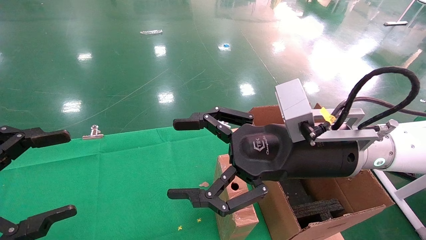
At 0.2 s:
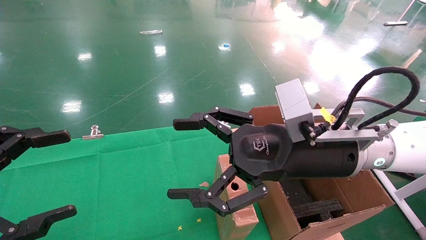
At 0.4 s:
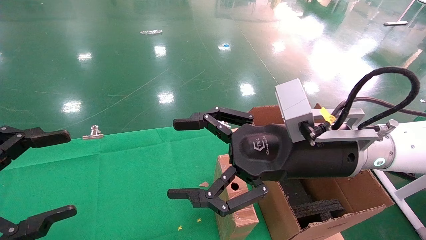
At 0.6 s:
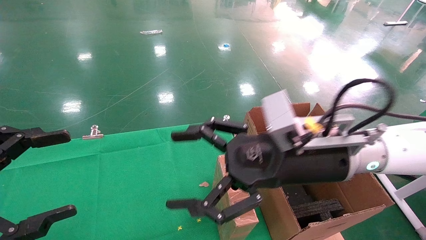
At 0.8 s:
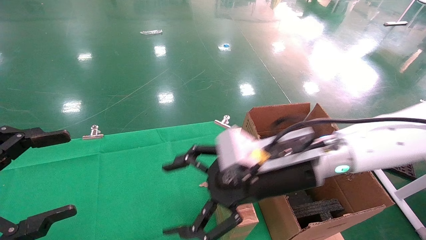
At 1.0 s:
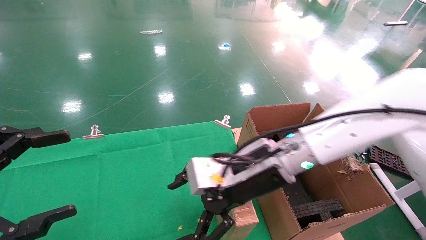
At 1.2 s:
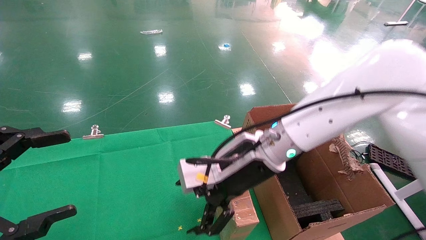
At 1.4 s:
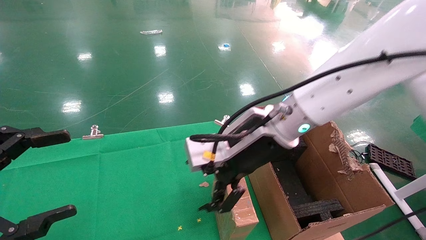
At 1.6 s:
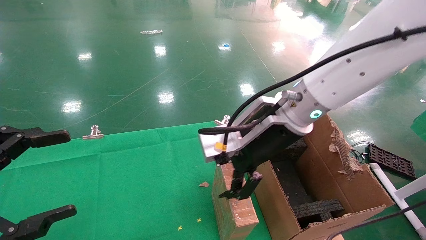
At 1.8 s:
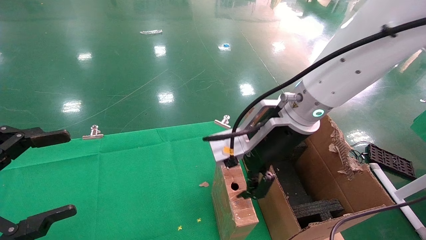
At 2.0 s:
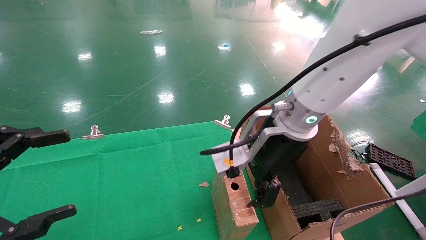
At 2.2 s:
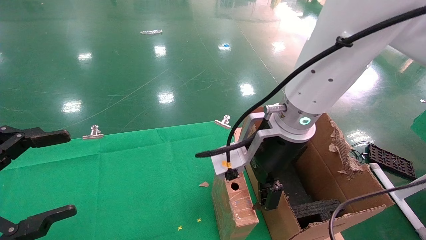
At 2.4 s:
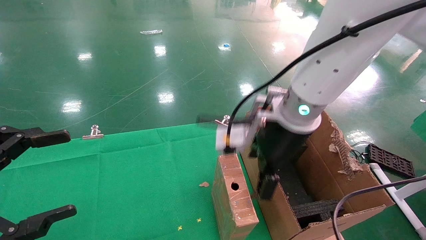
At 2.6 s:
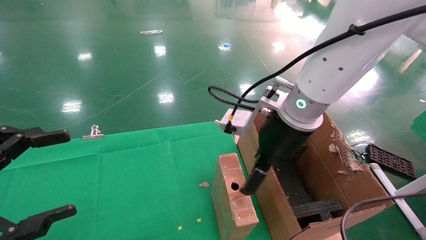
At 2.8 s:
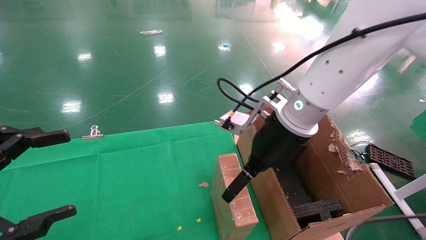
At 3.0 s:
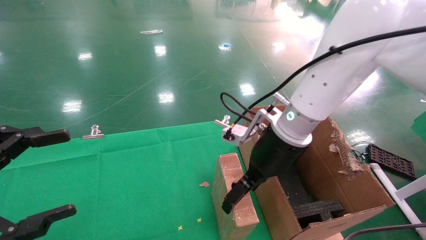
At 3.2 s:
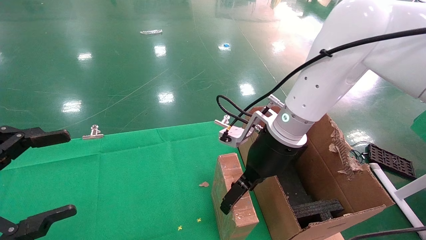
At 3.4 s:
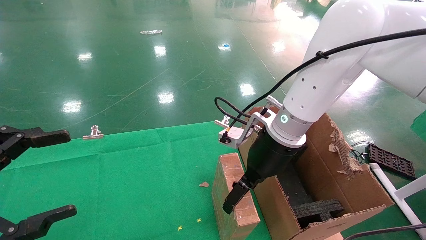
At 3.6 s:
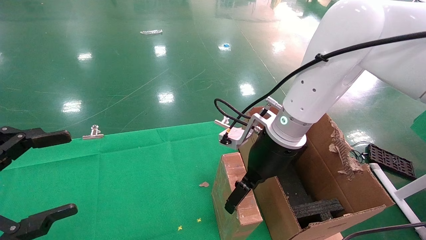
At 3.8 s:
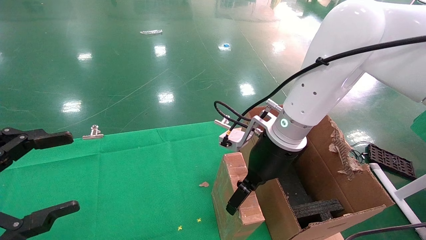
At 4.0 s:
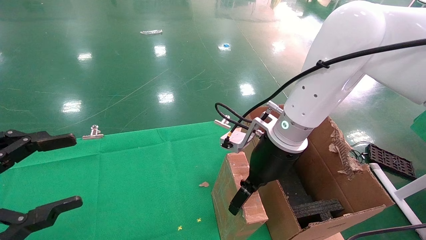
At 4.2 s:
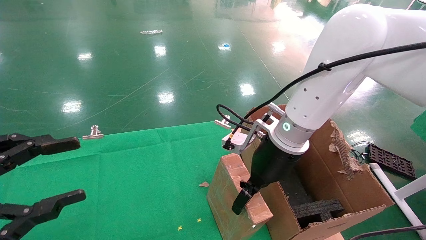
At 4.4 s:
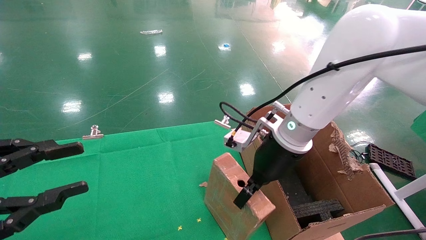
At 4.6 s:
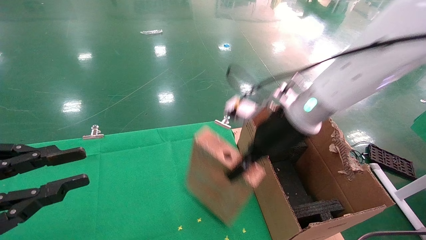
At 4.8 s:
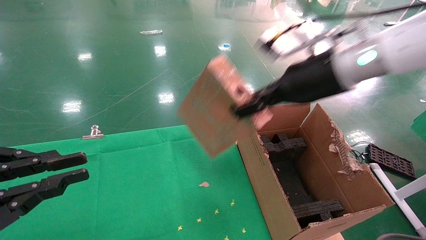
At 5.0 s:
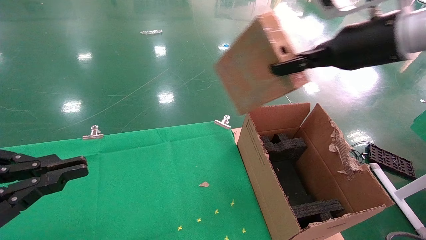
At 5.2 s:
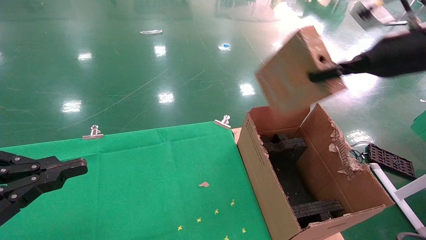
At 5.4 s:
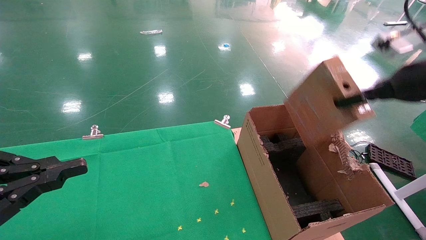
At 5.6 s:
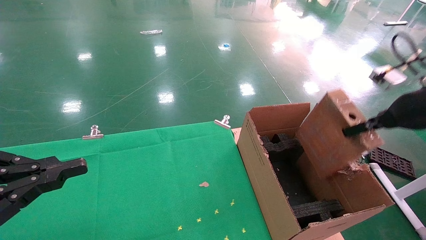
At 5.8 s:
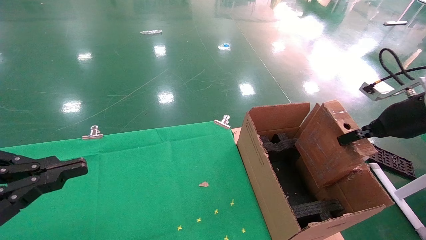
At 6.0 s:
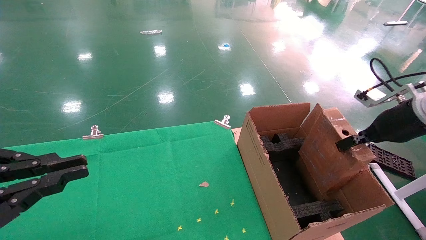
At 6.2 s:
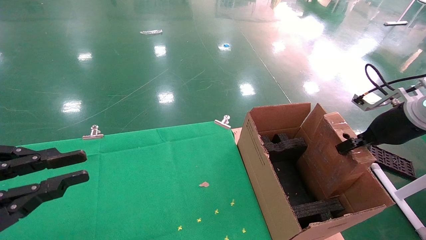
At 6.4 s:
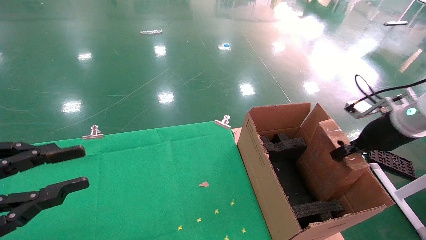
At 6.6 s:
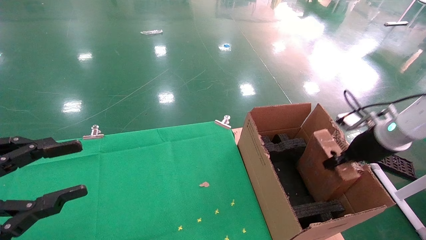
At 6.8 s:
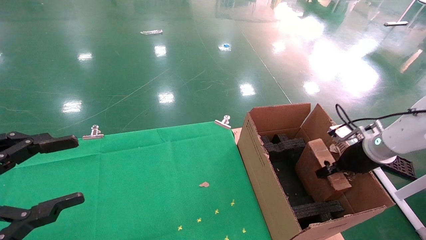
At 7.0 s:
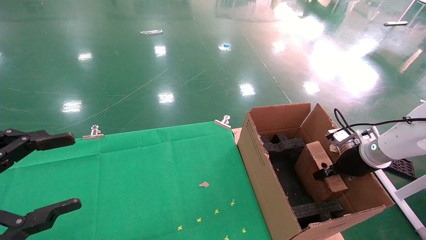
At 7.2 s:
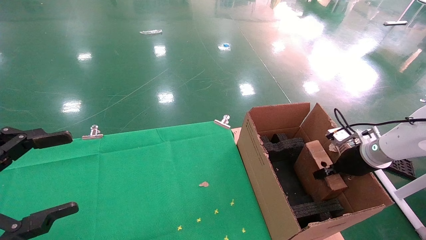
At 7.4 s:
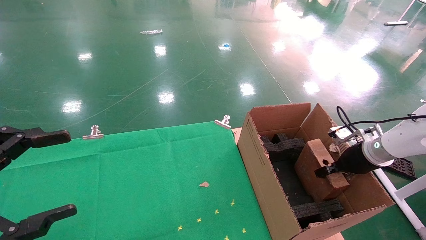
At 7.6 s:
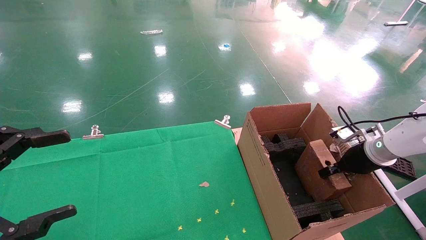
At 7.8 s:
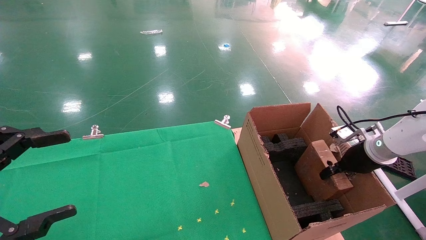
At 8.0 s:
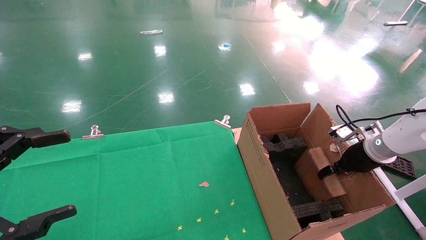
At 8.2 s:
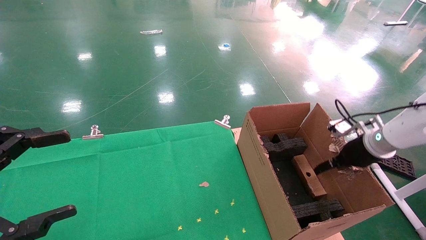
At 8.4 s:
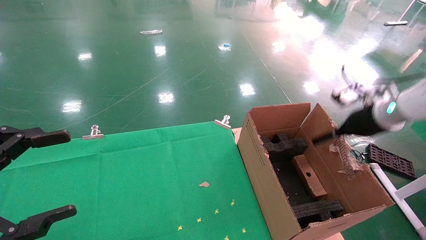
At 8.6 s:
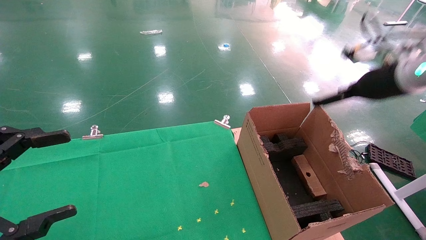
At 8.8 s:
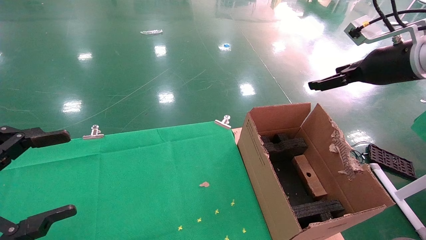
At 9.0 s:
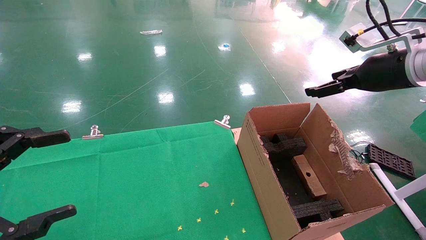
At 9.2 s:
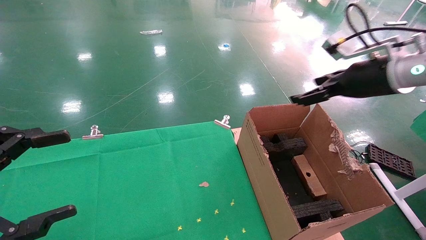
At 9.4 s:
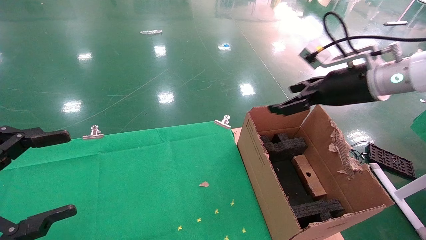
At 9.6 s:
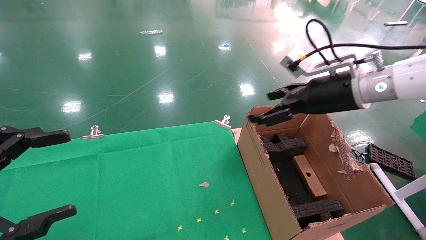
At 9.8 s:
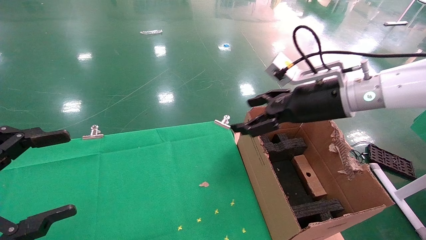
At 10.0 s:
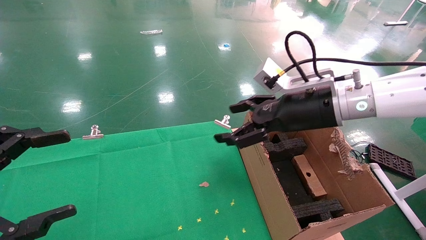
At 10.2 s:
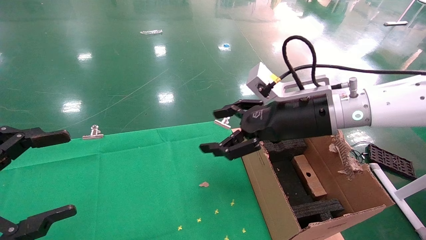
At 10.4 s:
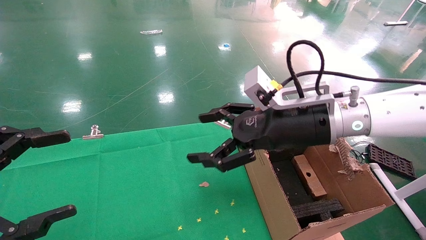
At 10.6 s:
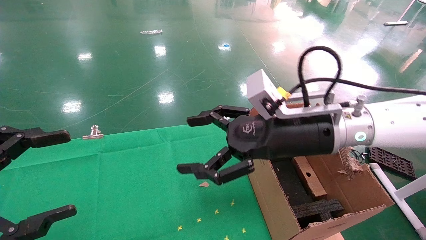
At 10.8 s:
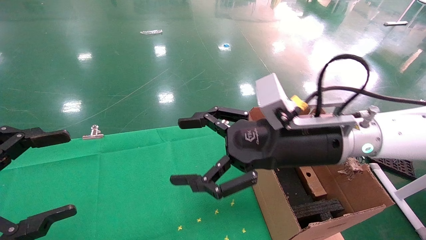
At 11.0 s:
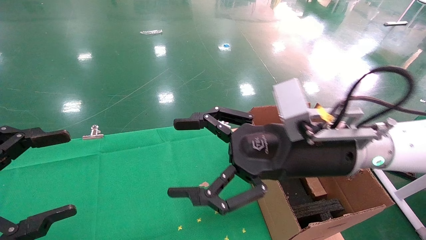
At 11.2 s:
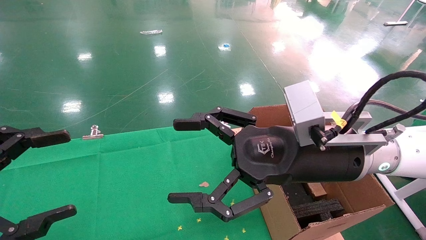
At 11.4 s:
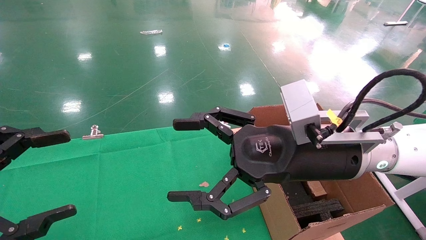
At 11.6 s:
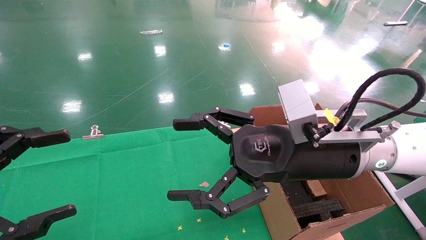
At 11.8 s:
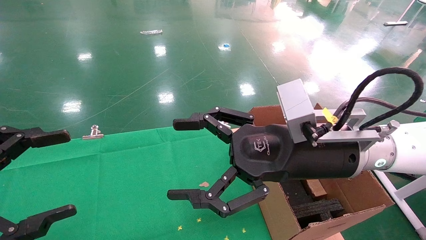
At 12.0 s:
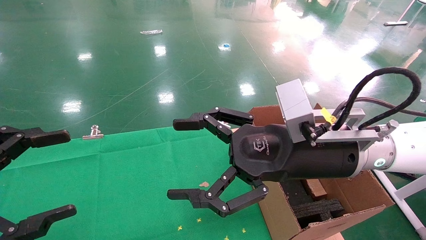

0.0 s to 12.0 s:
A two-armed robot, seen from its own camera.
Task of the whole recording: using a robotic arm to pick up a cardboard box and palace it the carton.
Step, 0.6 to 5.8 s: Pick up the mouse and the power cord paper box.
Step, 6.0 to 10.0 s: Place the mouse and the power cord paper box into the container.
0.0 to 1.6 s: The right gripper goes approximately 10 cm forward and to the left.
3.0 to 4.4 s: The left gripper closes. The right gripper closes.
4.4 to 6.0 s: The left gripper closes; the right gripper goes some 25 cm to the right.
6.0 to 7.6 s: The left gripper opens. The right gripper goes roughly 15 cm downward and forward.
7.6 to 9.0 s: The right gripper shifts some 20 cm upward, and opens.
9.0 to 10.4 s: The right gripper moves to the left, roughly 20 cm.
10.4 to 12.0 s: The right gripper shifts approximately 5 cm backward.

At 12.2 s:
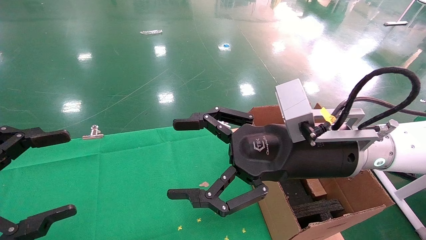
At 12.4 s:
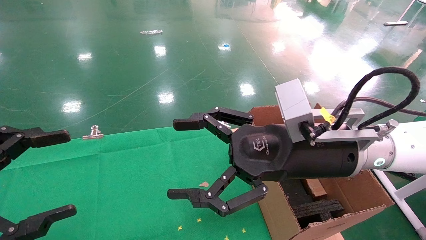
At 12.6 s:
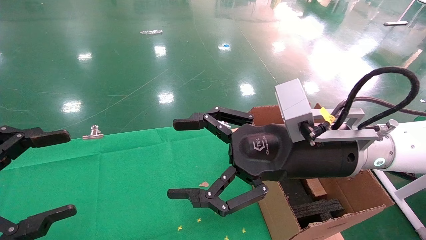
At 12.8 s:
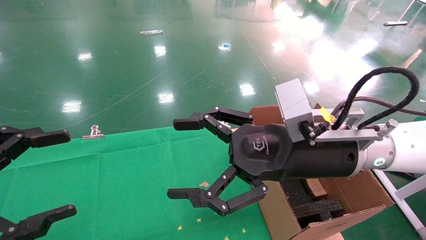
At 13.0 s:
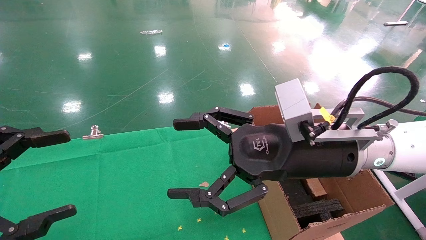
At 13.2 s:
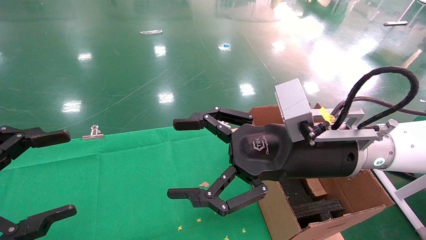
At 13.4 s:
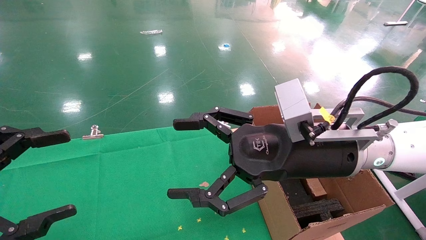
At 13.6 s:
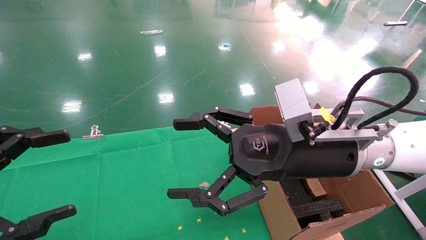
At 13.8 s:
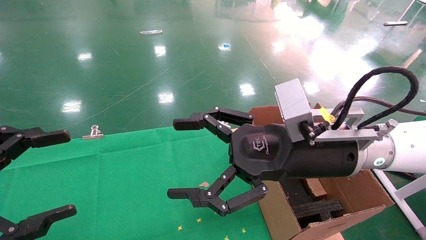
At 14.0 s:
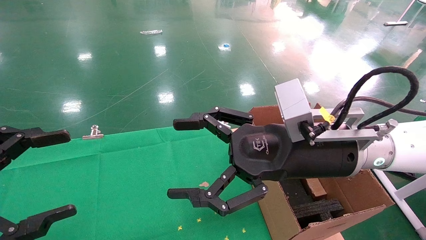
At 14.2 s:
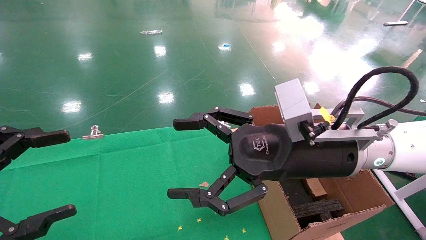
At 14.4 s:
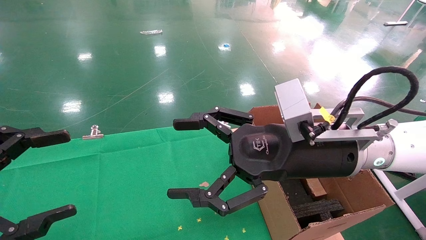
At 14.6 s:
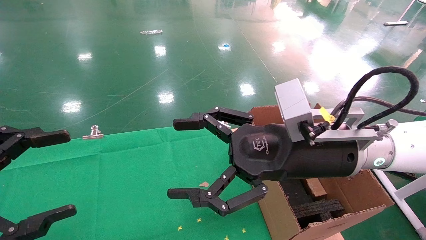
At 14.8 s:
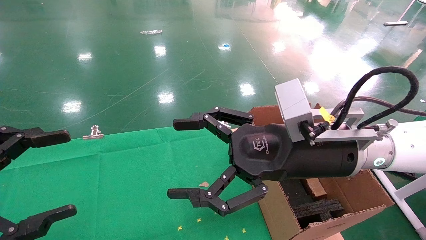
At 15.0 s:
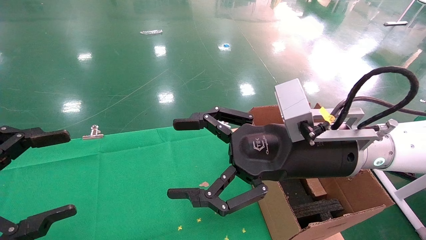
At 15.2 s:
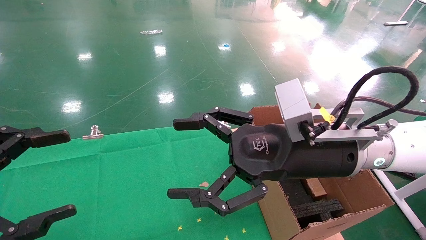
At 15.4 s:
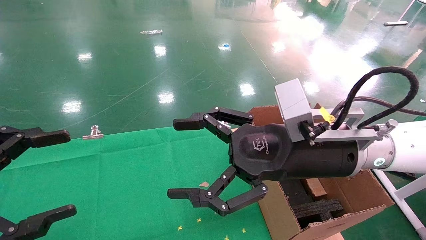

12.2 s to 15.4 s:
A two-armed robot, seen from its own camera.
Task of the whole recording: using a robotic arm to pick up a cardboard box and palace it the carton.
12.2 to 15.4 s: The two grippers keep their place.
